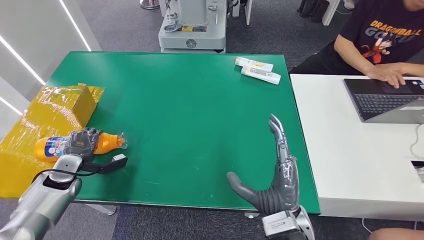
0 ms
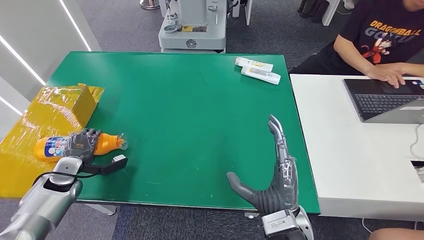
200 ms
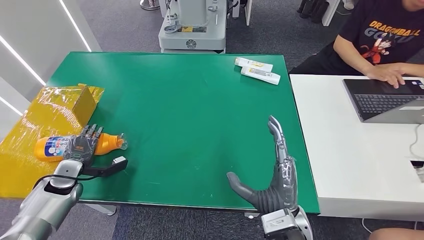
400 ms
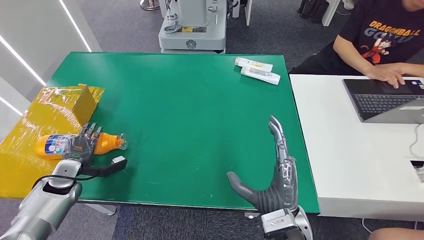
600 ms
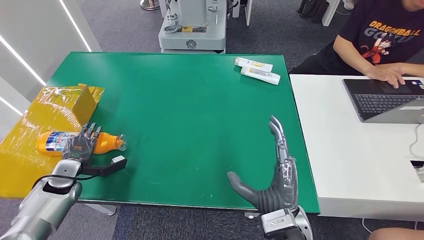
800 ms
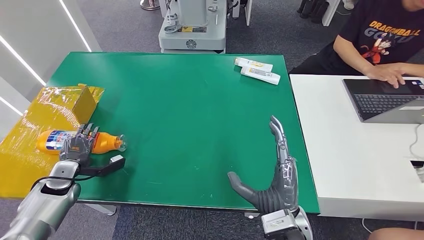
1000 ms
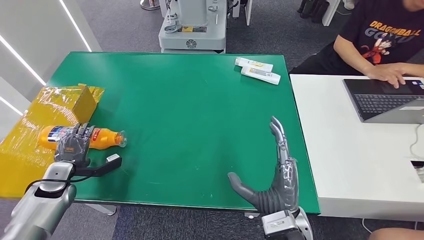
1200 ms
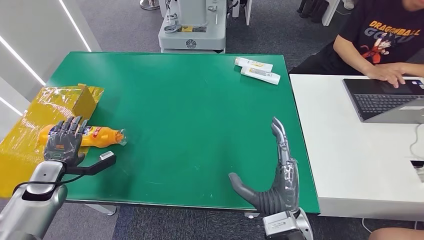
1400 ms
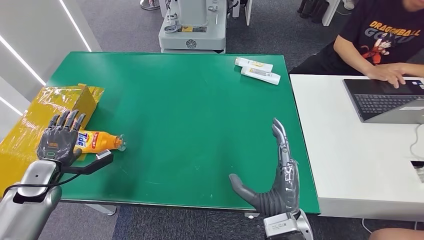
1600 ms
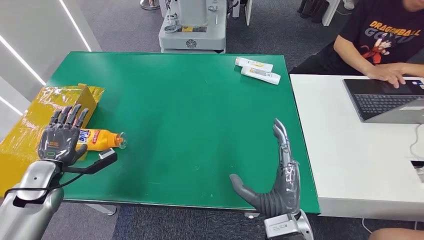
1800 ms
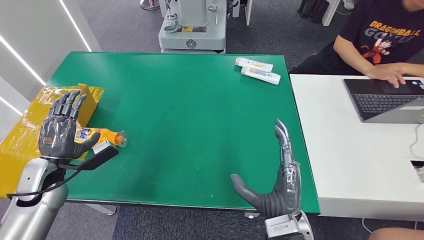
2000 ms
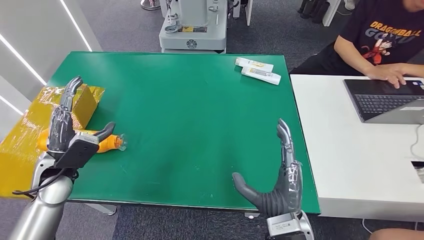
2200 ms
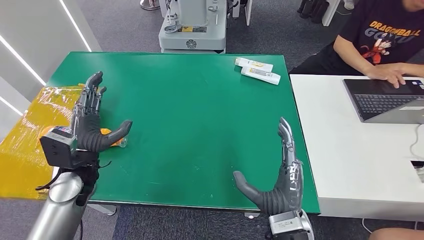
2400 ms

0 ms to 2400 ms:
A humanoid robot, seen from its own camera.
Step, 0 ms to 2400 ms: Turn the bottle to the front side.
0 ms to 1200 ms: The hands stay close to where they were, moving slightly.
1200 ms to 2400 ms: The left hand travels to the right and upward by about 20 cm.

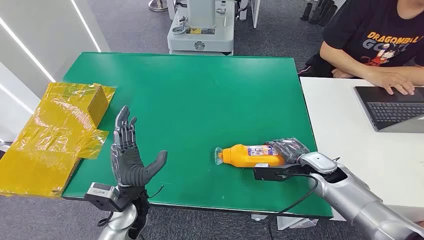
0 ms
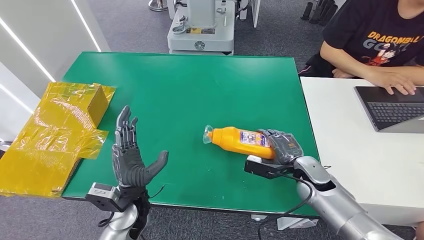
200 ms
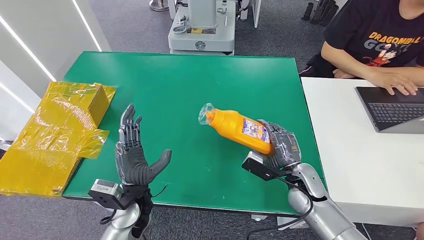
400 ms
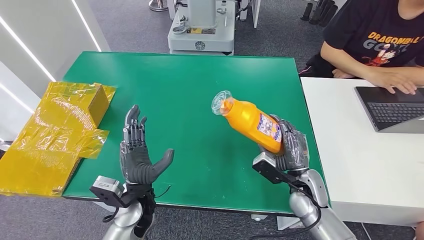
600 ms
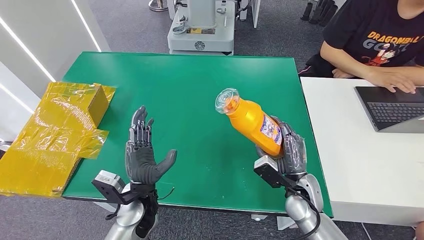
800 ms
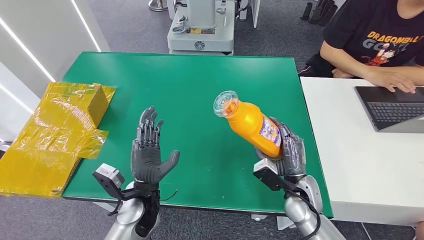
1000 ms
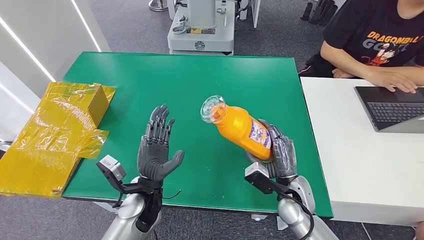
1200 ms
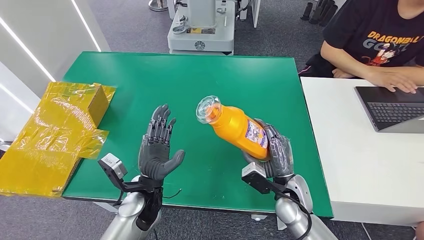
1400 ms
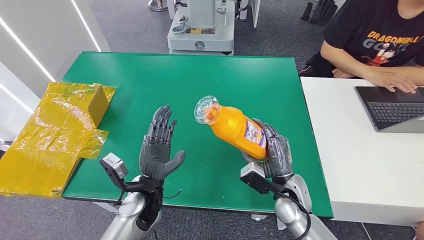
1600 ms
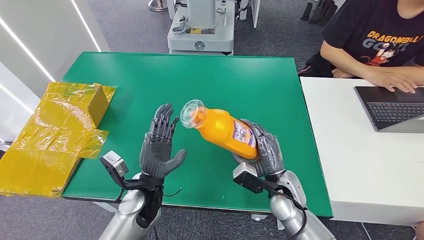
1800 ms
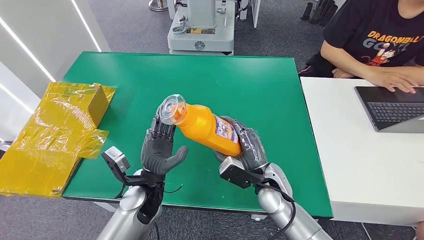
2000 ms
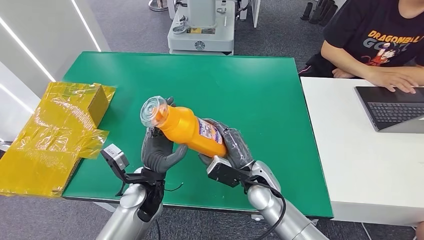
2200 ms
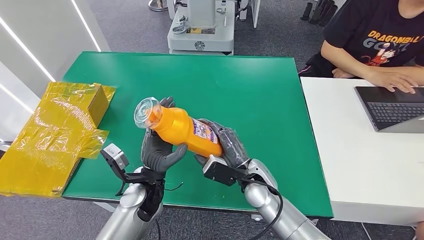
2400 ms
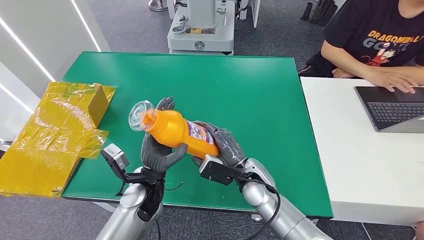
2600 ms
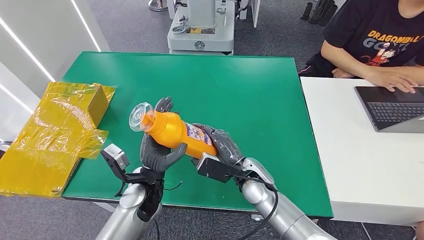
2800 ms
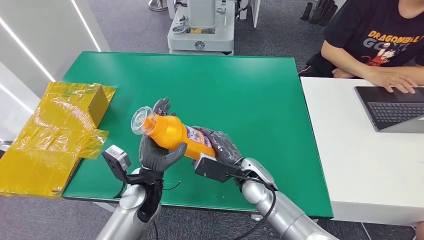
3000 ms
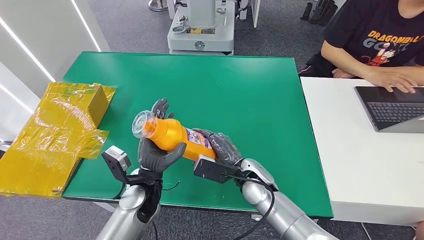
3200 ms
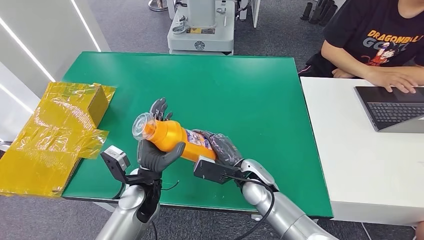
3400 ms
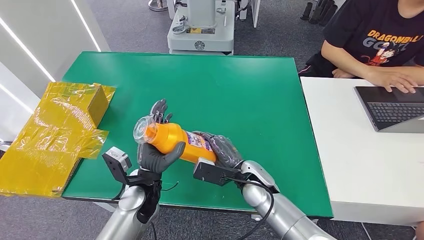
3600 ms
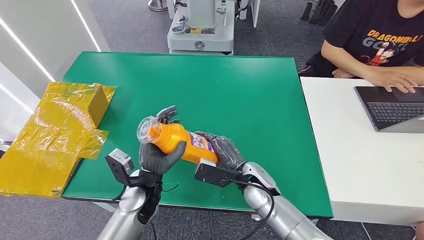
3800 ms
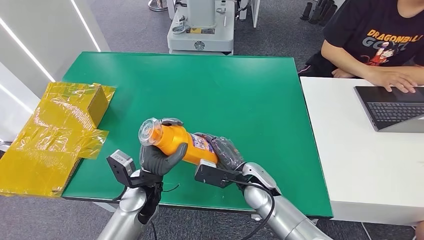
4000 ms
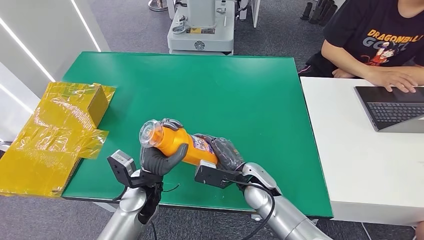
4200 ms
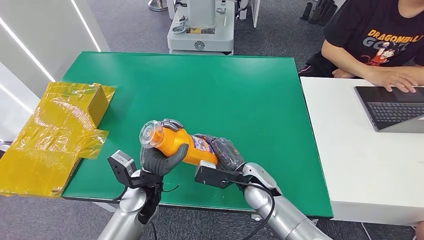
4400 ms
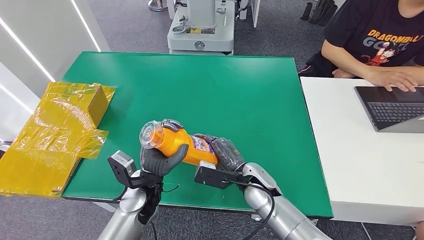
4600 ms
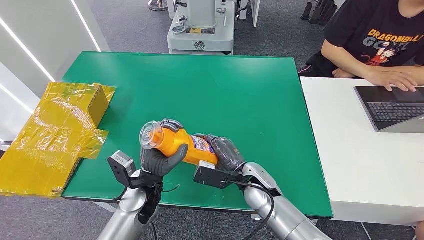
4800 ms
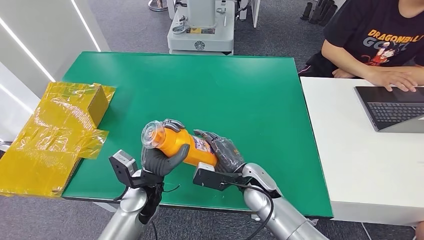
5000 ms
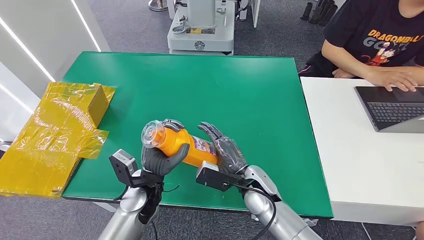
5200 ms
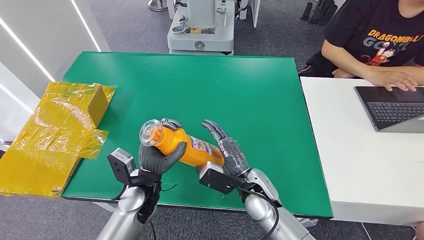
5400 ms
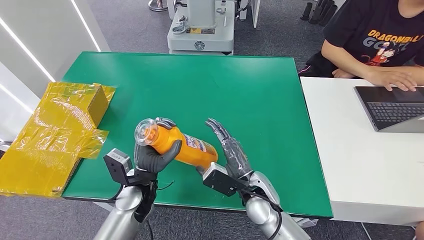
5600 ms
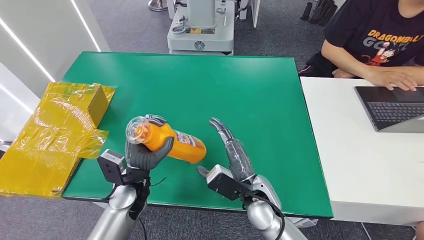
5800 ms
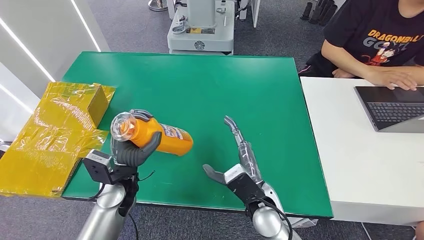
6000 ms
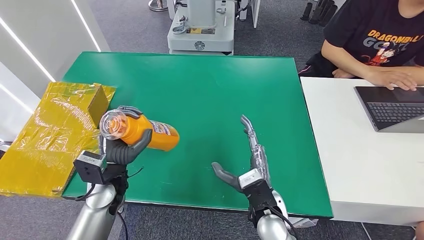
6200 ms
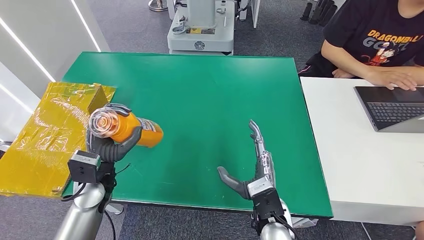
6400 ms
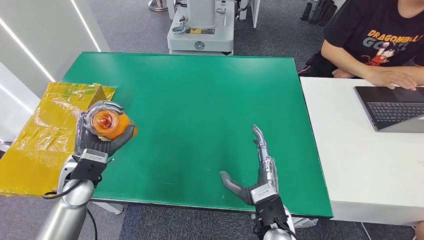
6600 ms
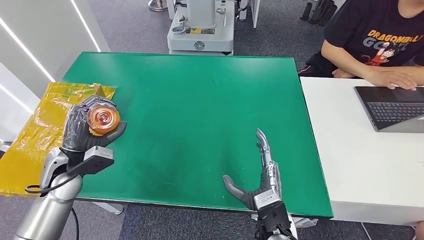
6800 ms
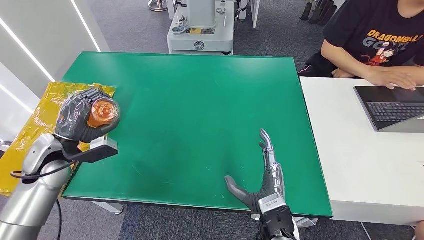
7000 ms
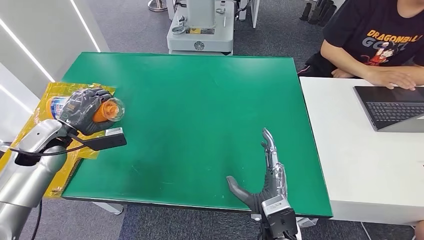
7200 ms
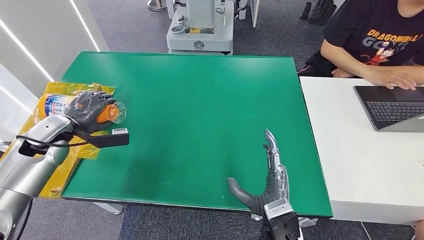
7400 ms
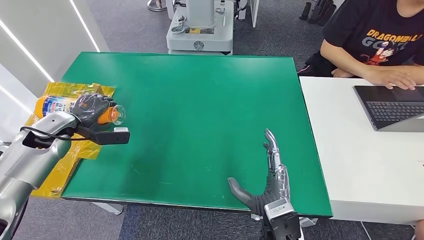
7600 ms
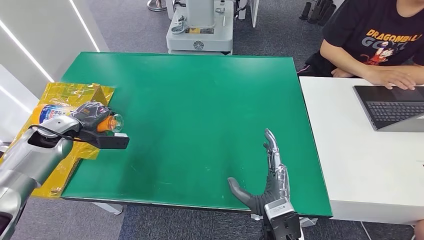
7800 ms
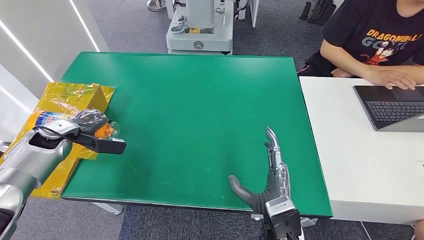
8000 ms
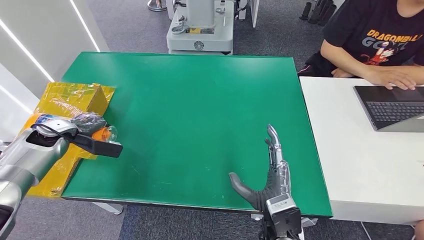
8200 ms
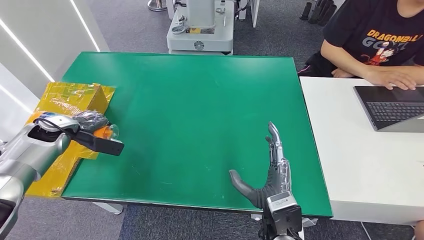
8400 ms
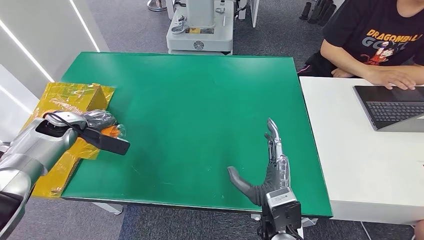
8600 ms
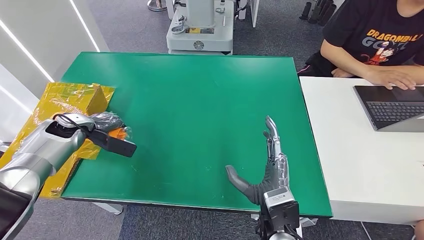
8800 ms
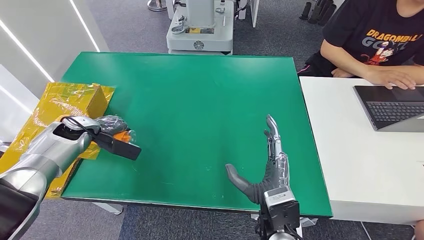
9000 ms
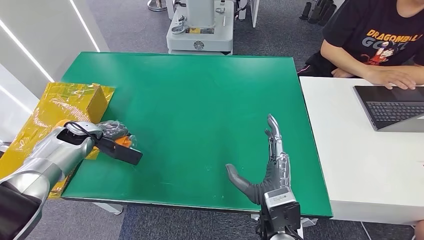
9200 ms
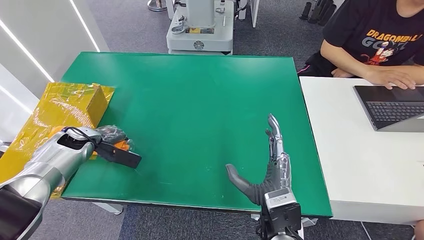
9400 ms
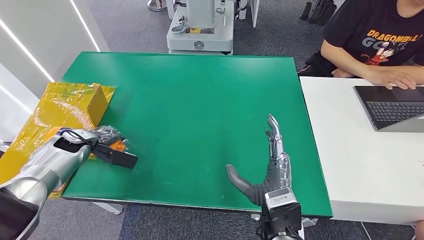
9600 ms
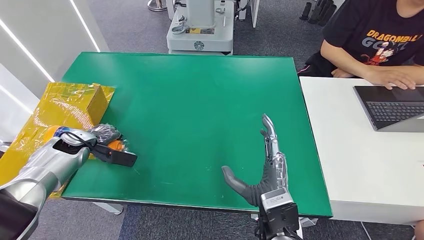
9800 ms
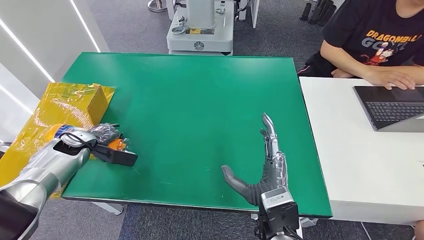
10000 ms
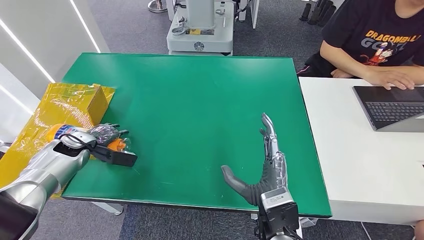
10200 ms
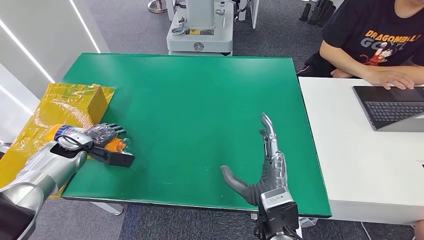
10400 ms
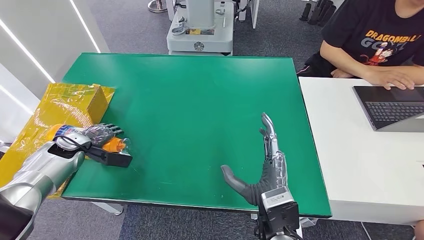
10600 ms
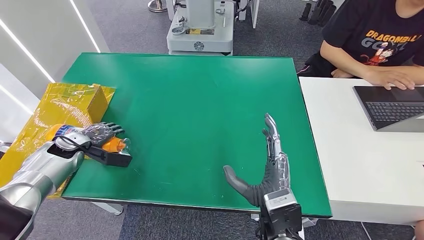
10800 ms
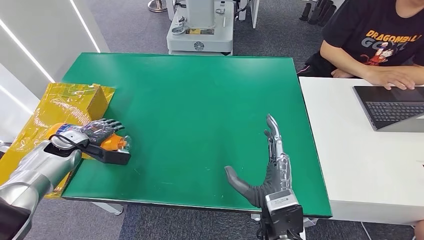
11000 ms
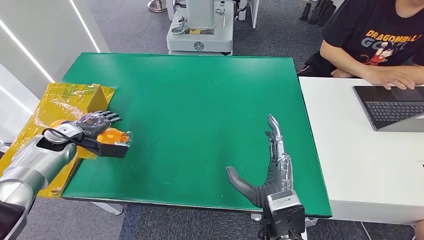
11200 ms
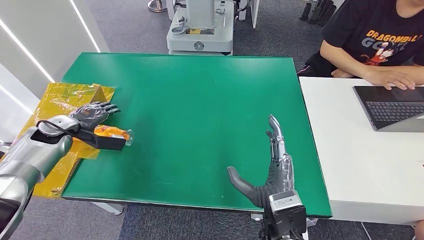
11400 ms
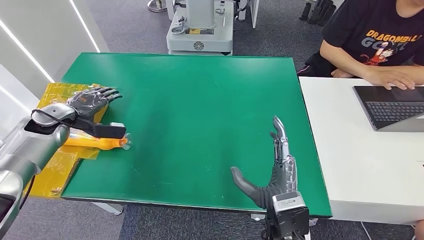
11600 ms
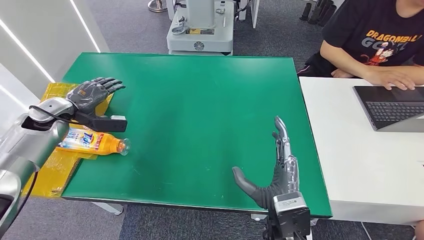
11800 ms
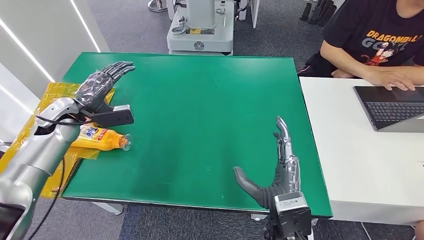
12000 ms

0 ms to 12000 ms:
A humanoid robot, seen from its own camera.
Step, 0 ms to 2200 ms: Pick up the bottle from the table.
Step, 2400 ms to 12000 ms: Turn the bottle to the front side.
1600 ms to 3000 ms: The right hand shifts roughly 10 cm to the left.
3000 ms to 4400 ms: There are only small adjustments of the hands.
4400 ms to 6000 ms: The right hand moves backward, approximately 5 cm, while the left hand goes approximately 5 cm to the left.
6000 ms to 7600 ms: The right hand shifts about 5 cm backward. The left hand goes about 25 cm to the left and forward.
9000 ms to 10400 ms: The left hand ends up some 5 cm from where it was.
10400 ms to 12000 ms: The left hand goes some 10 cm upward.
